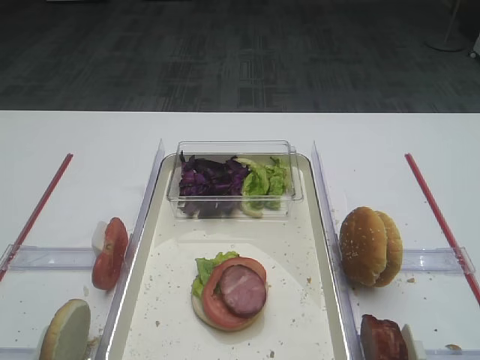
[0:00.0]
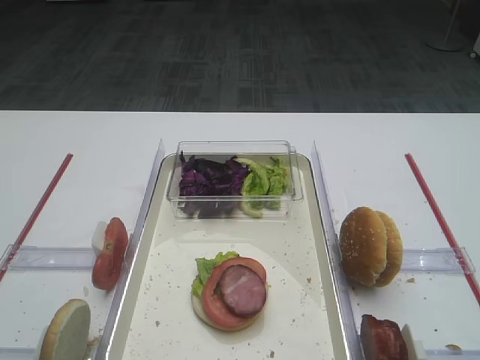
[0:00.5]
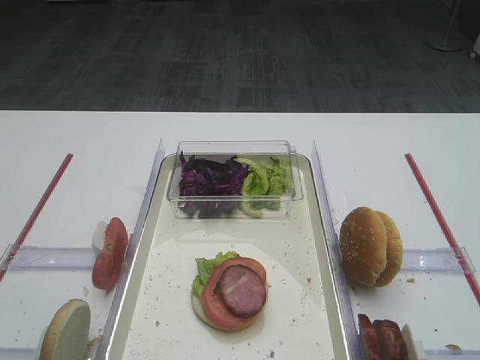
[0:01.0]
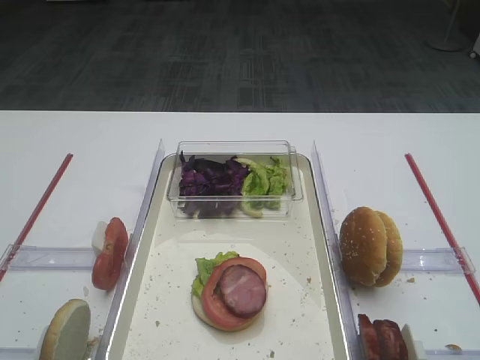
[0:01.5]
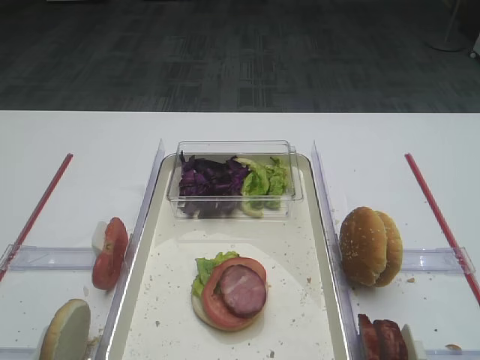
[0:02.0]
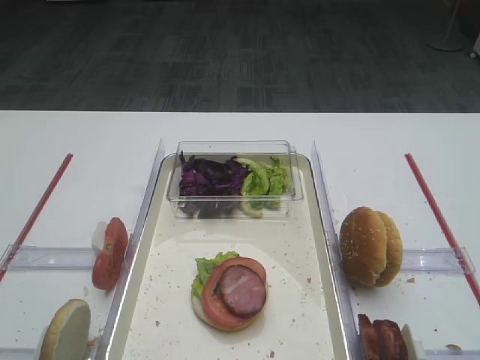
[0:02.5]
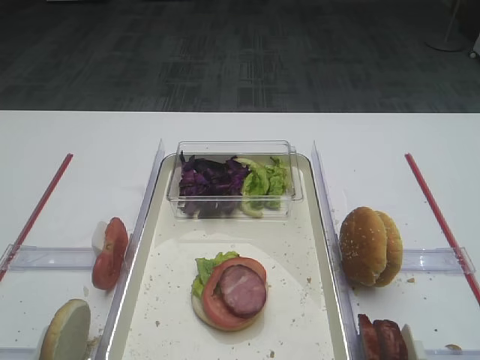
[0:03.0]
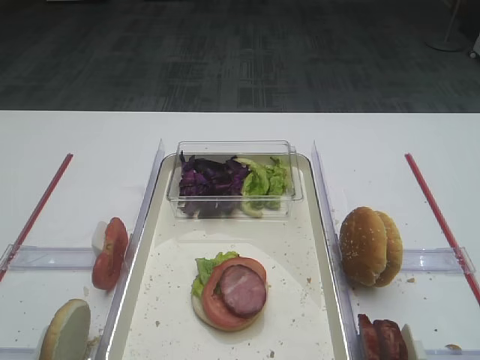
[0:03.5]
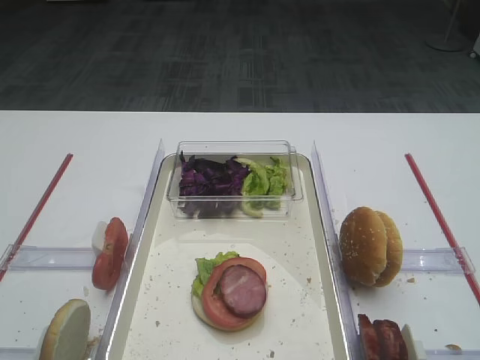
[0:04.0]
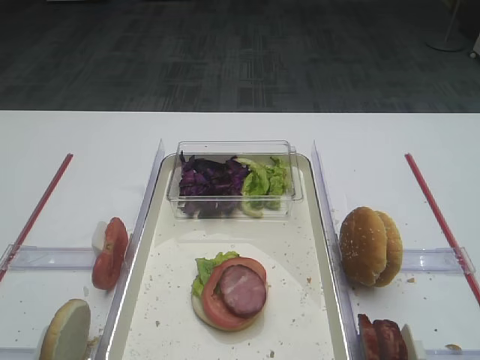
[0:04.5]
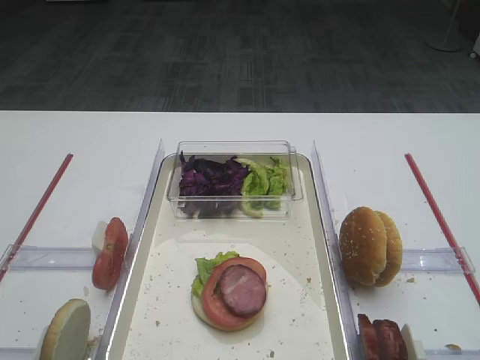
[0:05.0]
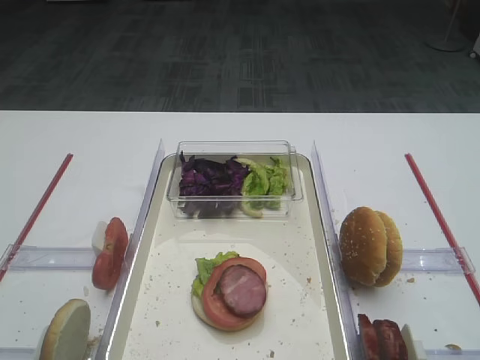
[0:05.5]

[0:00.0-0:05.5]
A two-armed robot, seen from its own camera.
0:00.0 to 0:05.5: Neither gripper changes place.

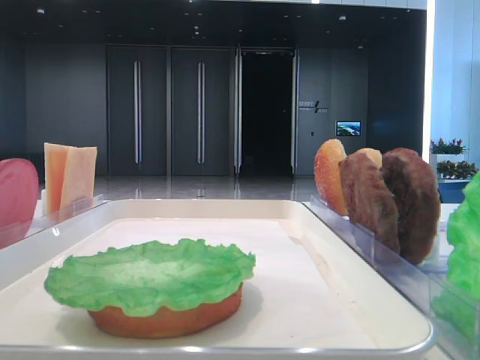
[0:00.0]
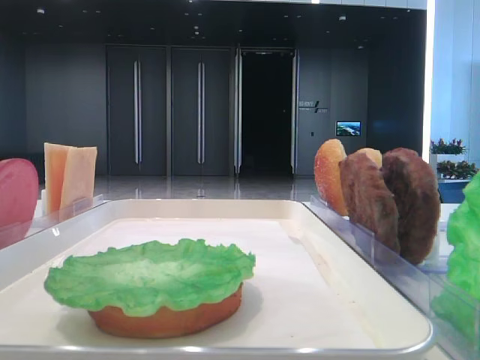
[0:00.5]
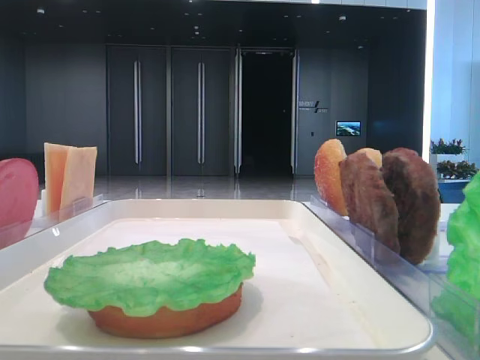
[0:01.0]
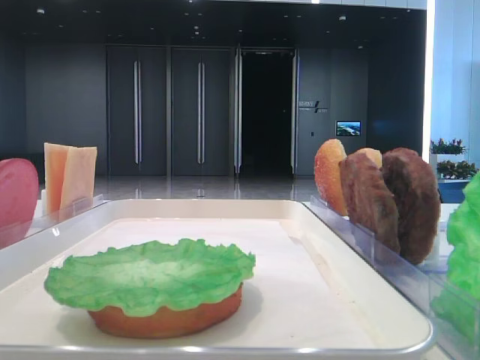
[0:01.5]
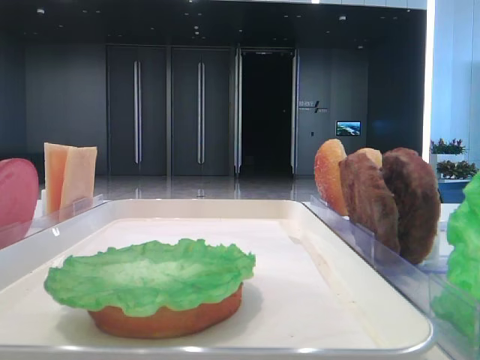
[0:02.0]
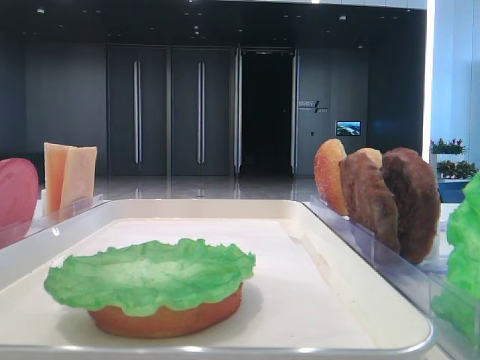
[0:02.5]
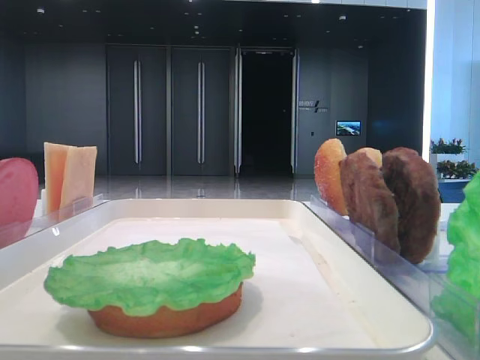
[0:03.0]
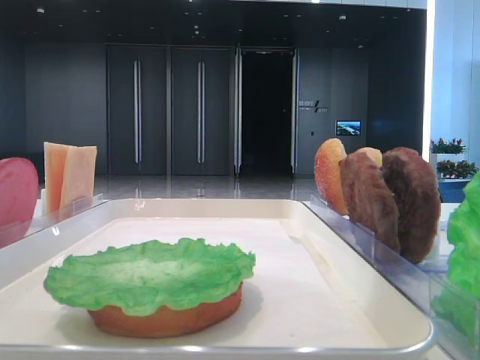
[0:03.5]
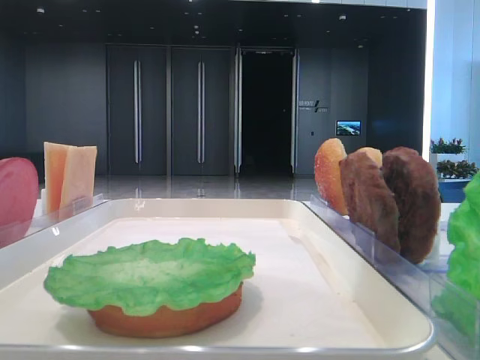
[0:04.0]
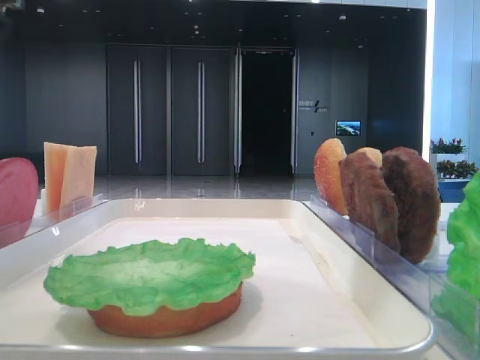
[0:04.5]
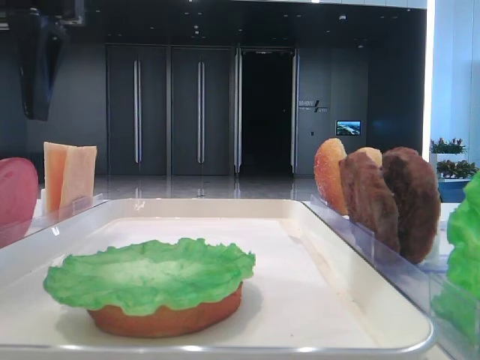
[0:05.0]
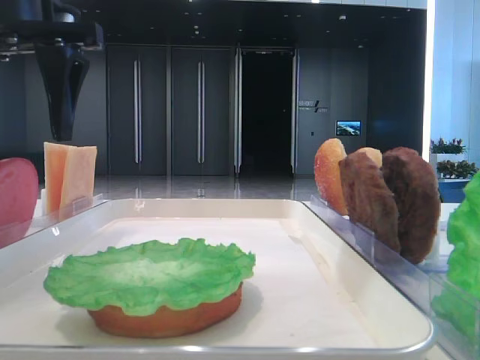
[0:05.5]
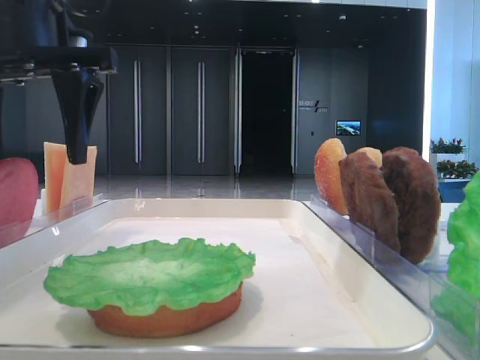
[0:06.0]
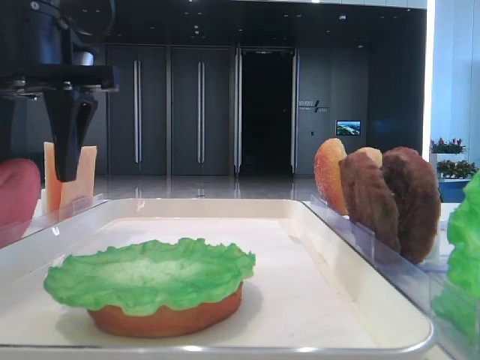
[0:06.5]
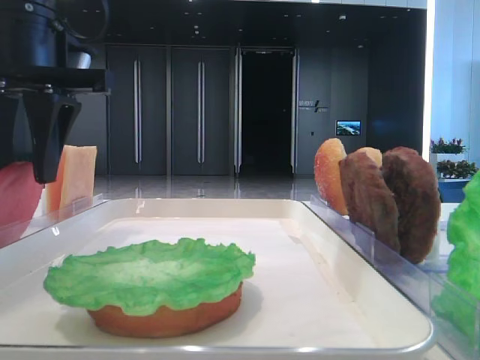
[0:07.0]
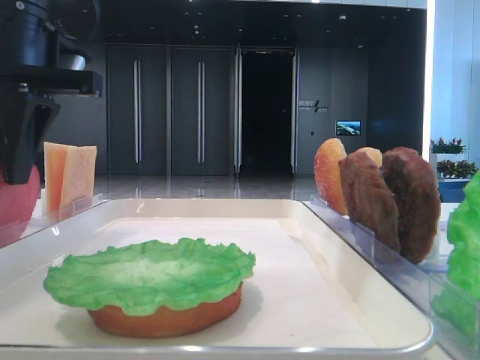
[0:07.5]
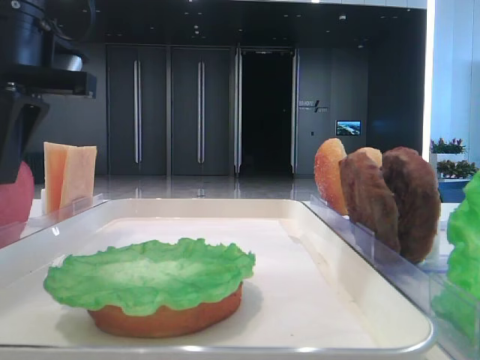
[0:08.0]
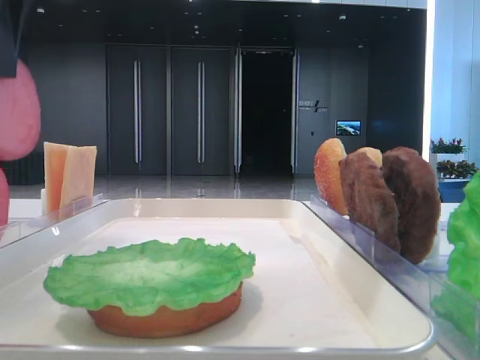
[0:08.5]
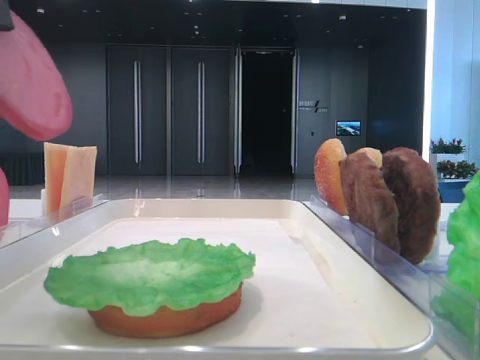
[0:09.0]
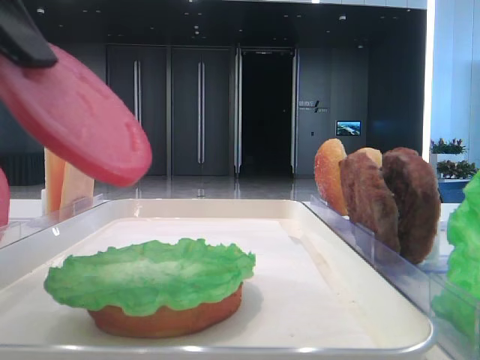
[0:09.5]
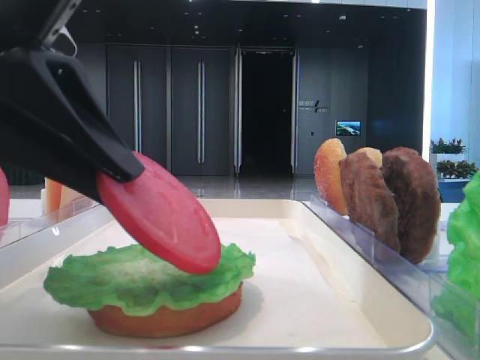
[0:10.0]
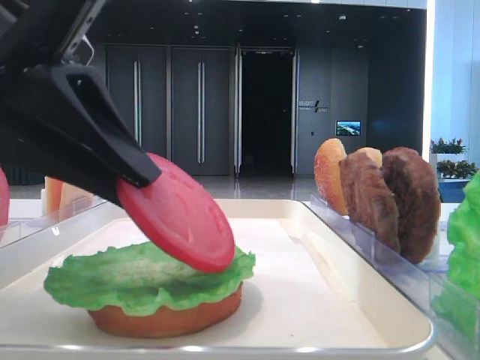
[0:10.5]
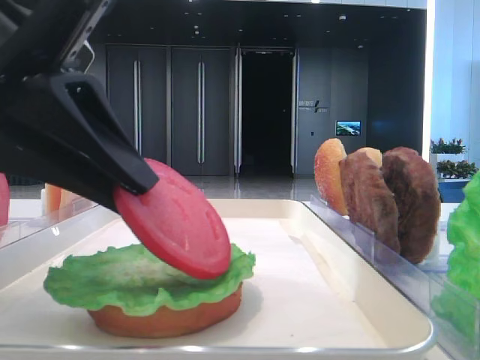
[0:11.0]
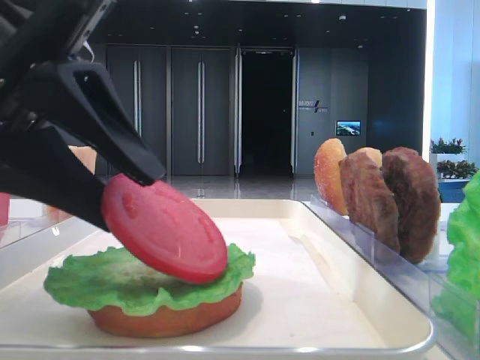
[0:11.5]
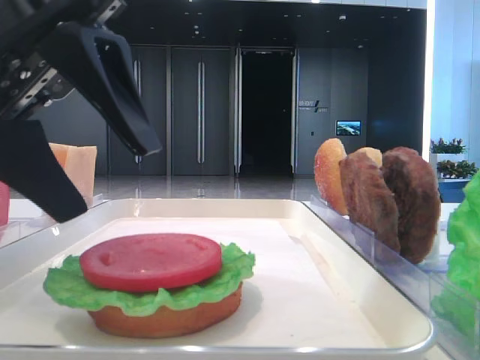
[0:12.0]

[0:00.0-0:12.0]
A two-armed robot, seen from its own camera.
Step, 0:00.0 to 0:07.5: Pick up the tomato slice with the left hand.
Step, 0:08.0 to 0:11.5: Place the tomato slice on the lettuce leaf with the left hand.
0:04.0 to 0:06.0: The left gripper heads to the right and downward, covering approximately 15 cm.
0:06.0 to 0:08.0: The left gripper closes.
0:08.0 to 0:10.0: The left gripper goes approximately 10 cm backward.
0:10.0 to 0:12.0: The left gripper moves roughly 5 cm, and opens its fingers.

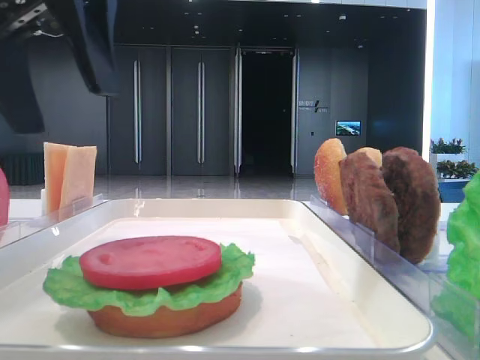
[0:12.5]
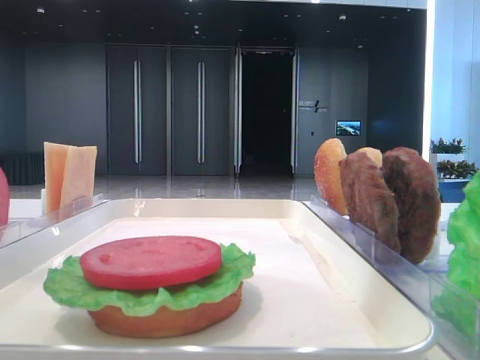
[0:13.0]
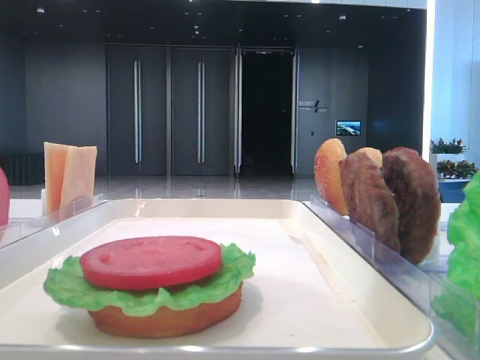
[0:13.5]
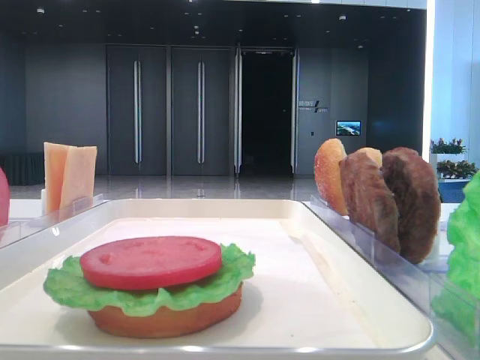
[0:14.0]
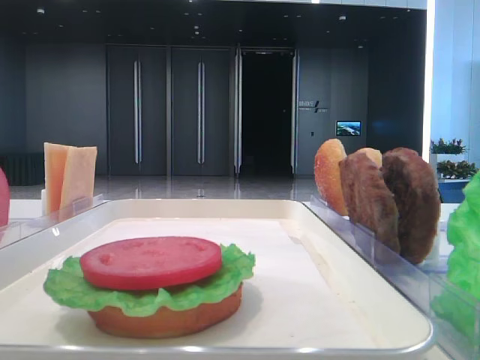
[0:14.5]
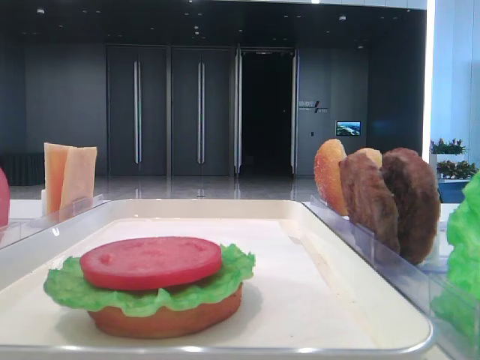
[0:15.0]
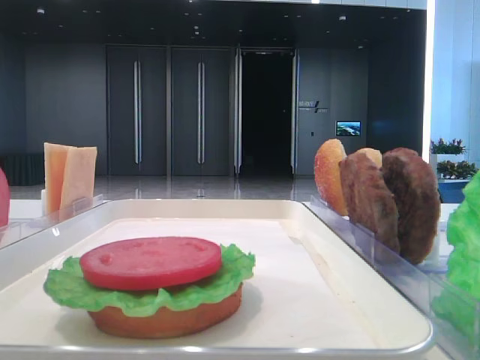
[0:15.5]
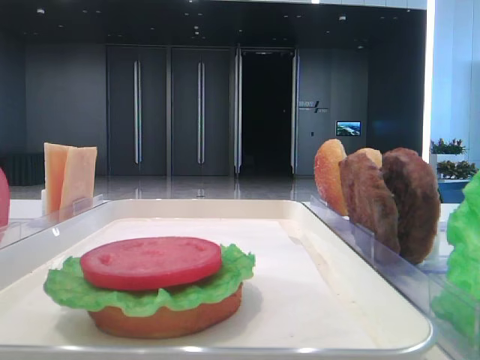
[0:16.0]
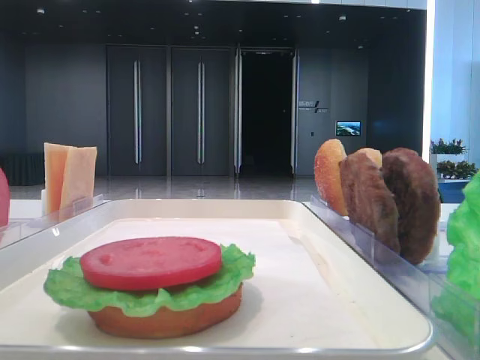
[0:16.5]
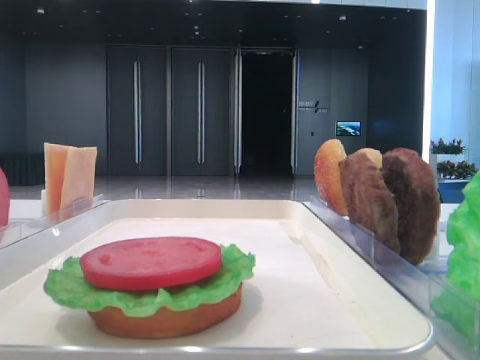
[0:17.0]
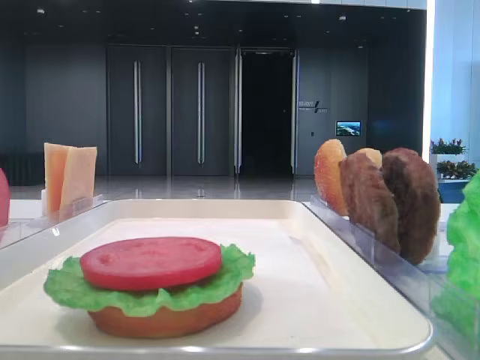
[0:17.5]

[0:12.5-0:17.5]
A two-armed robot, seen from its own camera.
0:12.5 to 0:15.0: The left gripper goes roughly 30 cm backward and to the left.

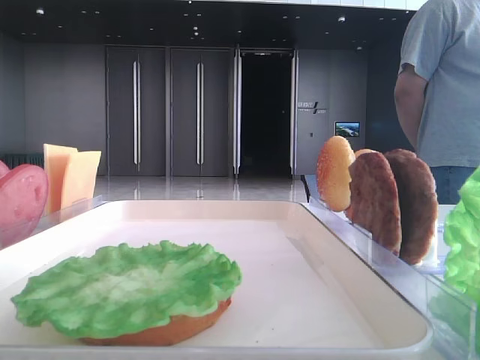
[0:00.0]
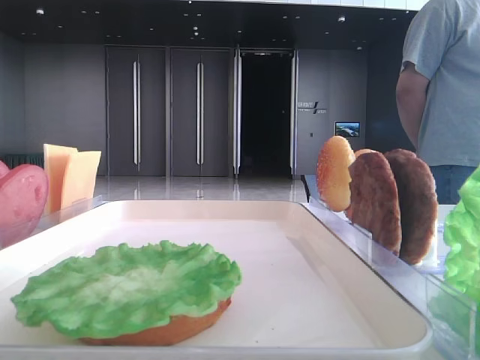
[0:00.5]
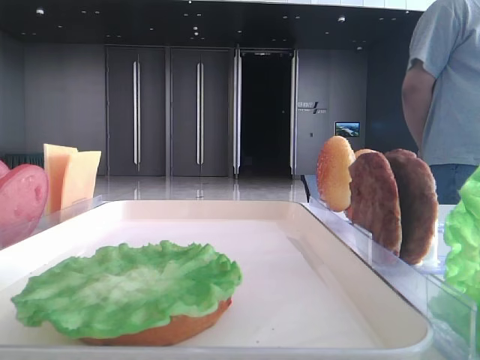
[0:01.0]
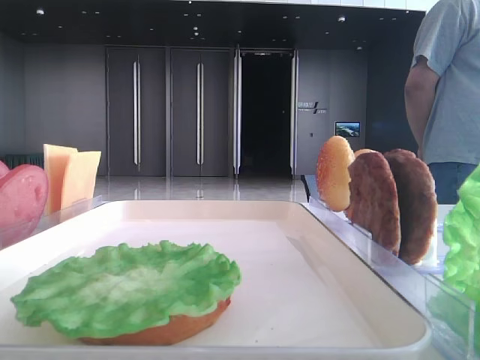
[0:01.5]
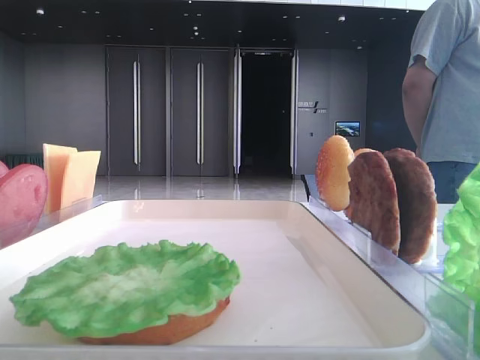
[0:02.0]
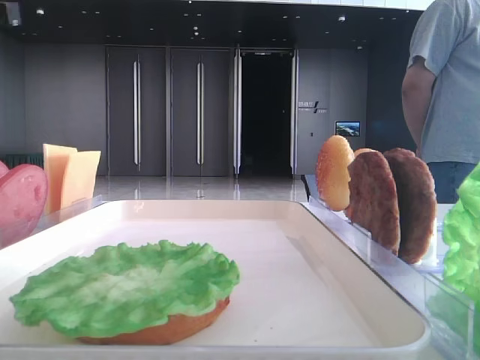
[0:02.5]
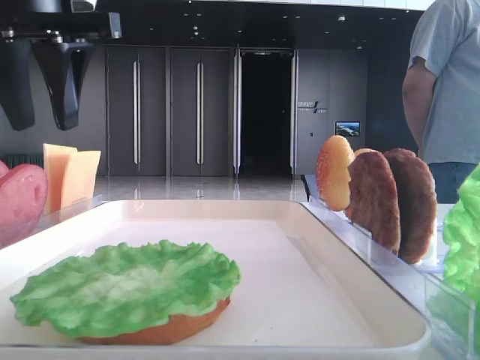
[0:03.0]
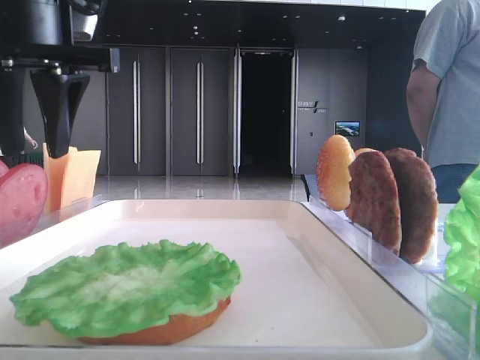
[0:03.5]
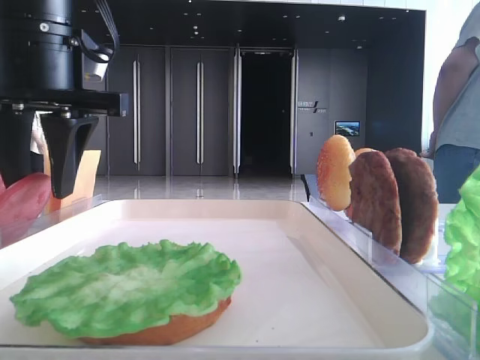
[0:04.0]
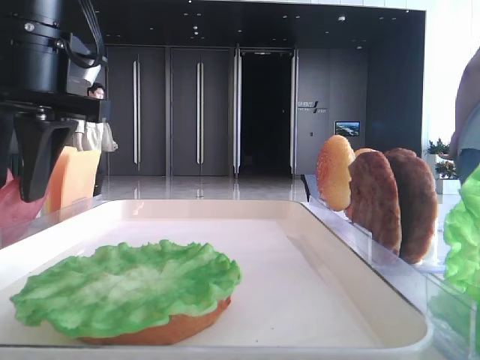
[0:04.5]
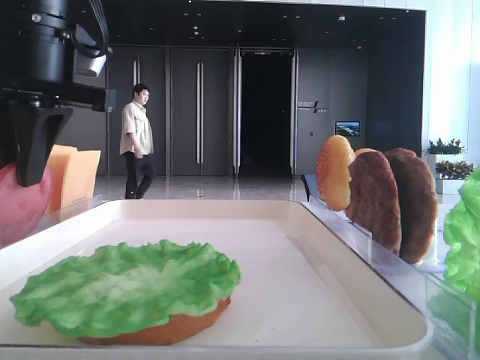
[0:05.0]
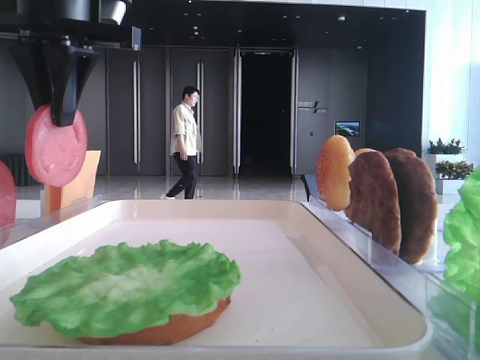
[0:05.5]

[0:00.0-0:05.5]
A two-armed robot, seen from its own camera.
Step, 0:00.0 to 0:04.5: Pick up the tomato slice with the left hand.
0:02.0 to 0:03.5: The left gripper heads to the right and downward, covering roughly 15 cm.
0:03.5 to 0:05.5: The left gripper closes its fingers.
